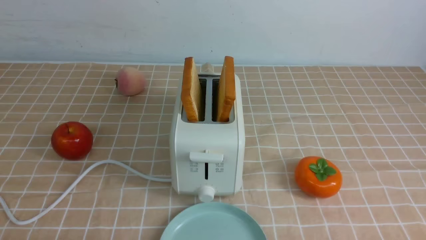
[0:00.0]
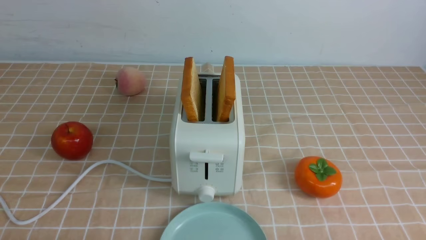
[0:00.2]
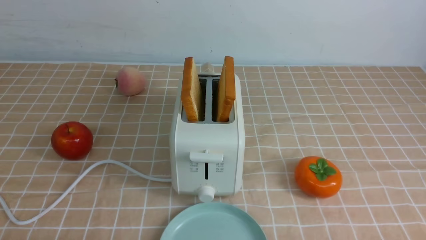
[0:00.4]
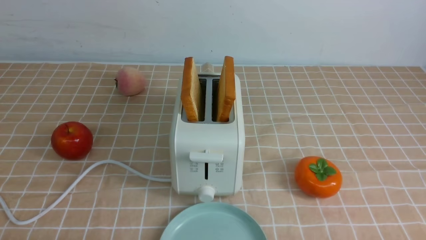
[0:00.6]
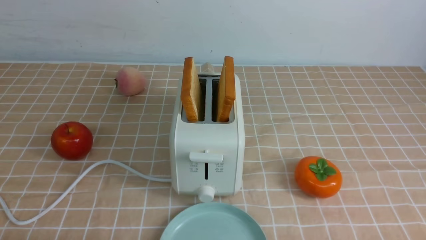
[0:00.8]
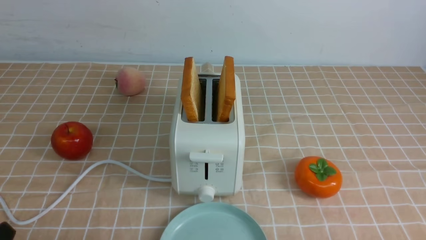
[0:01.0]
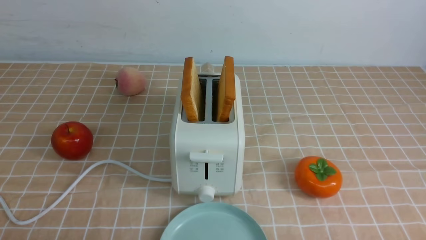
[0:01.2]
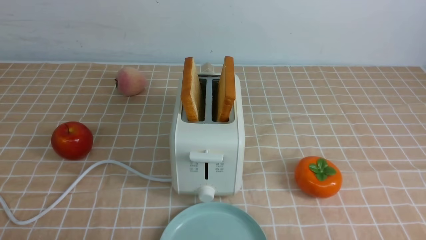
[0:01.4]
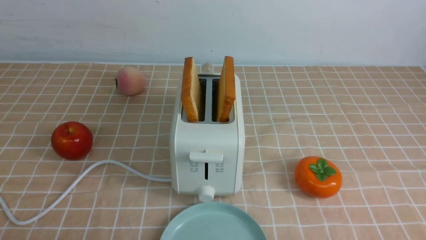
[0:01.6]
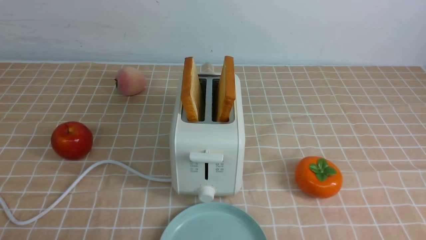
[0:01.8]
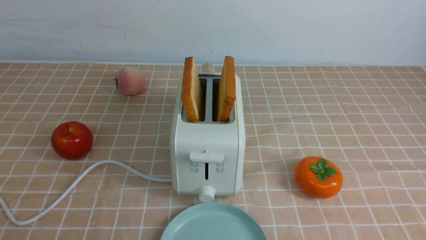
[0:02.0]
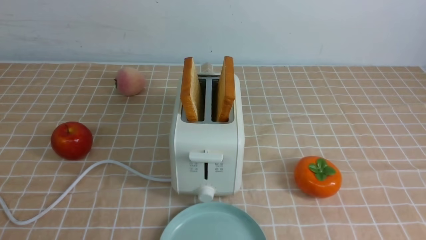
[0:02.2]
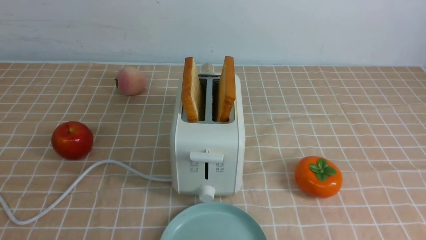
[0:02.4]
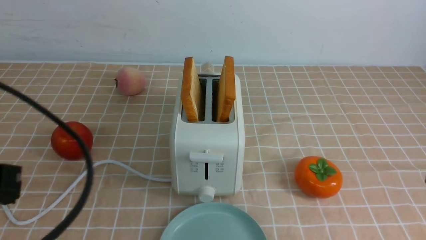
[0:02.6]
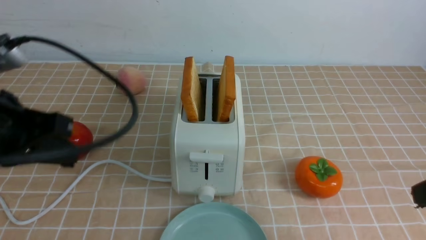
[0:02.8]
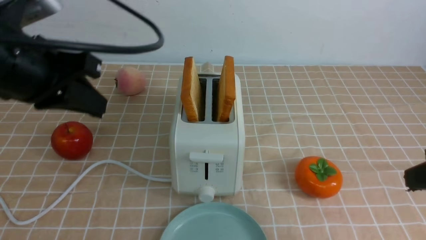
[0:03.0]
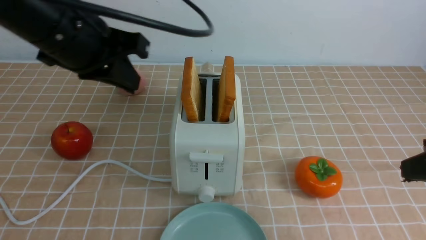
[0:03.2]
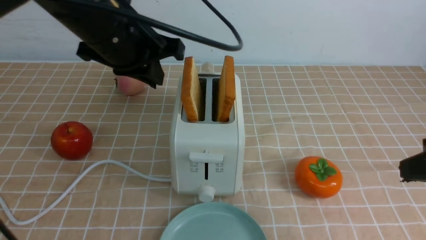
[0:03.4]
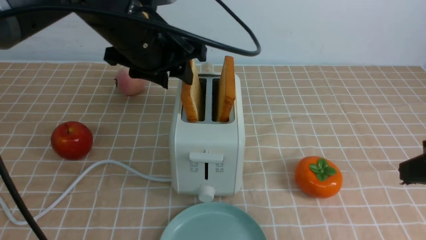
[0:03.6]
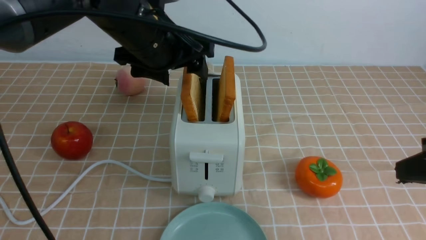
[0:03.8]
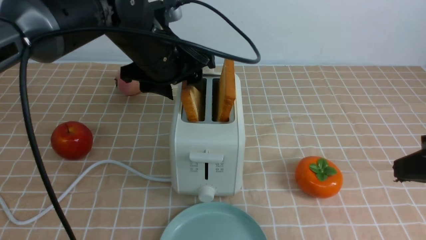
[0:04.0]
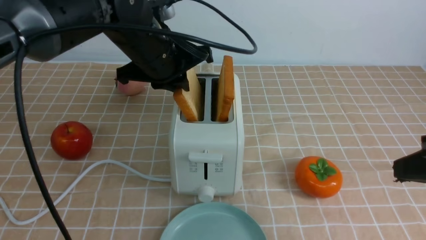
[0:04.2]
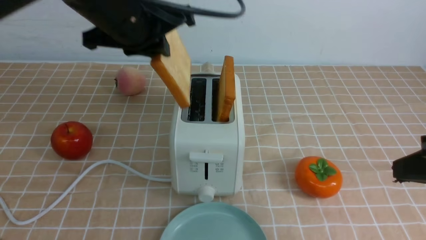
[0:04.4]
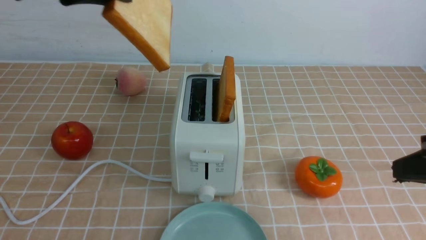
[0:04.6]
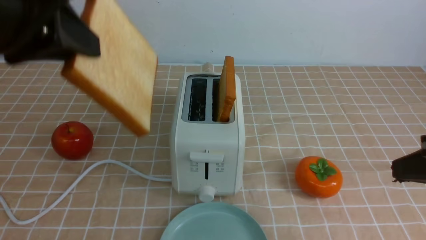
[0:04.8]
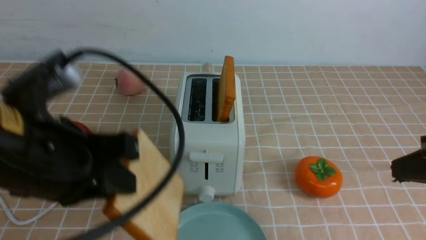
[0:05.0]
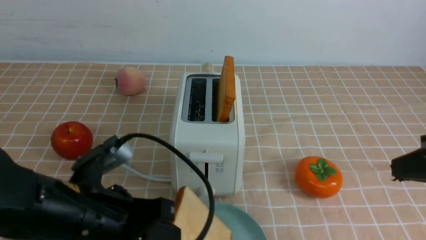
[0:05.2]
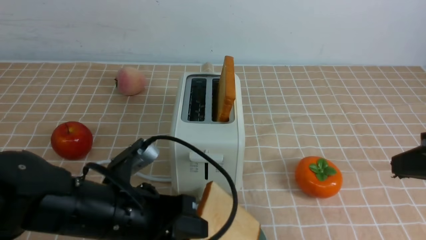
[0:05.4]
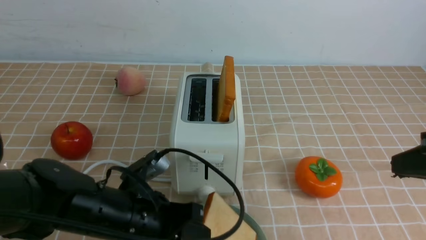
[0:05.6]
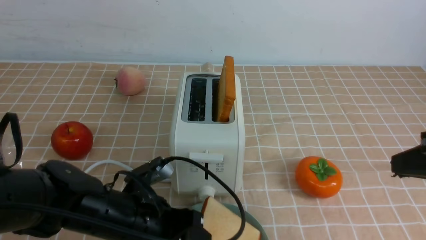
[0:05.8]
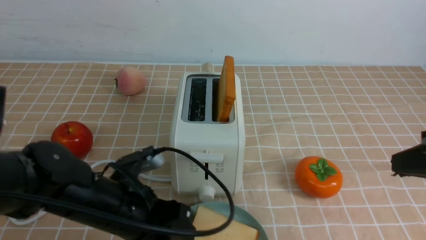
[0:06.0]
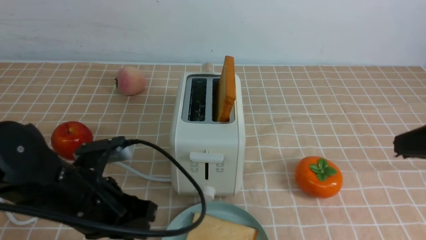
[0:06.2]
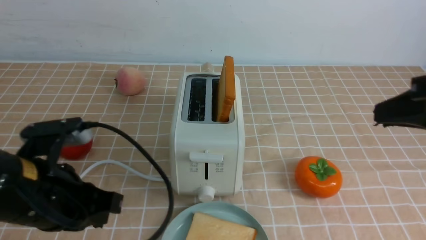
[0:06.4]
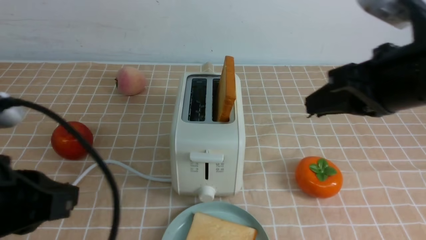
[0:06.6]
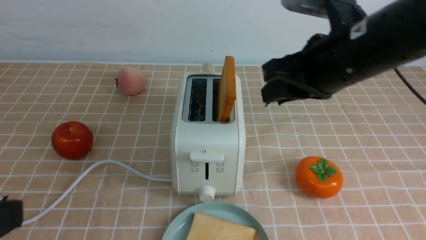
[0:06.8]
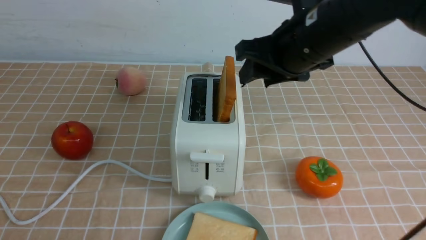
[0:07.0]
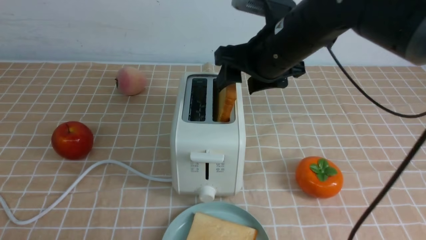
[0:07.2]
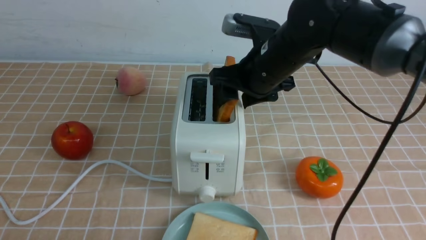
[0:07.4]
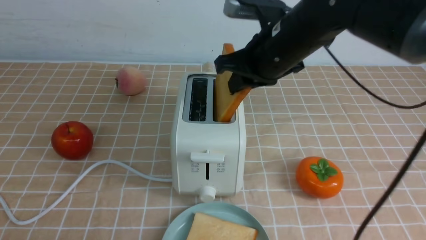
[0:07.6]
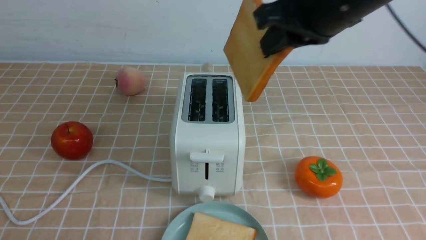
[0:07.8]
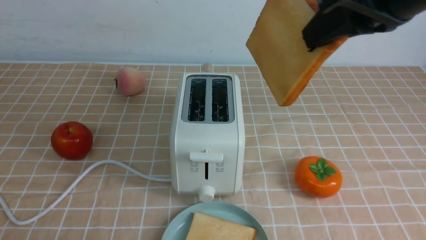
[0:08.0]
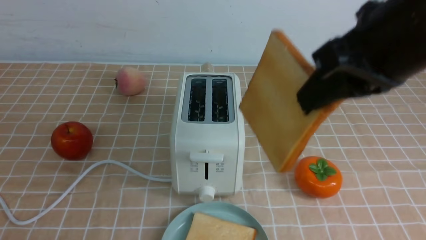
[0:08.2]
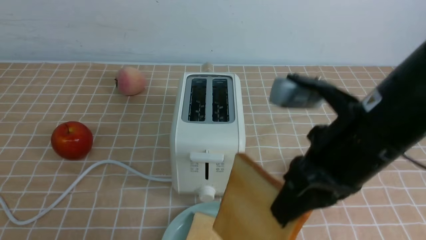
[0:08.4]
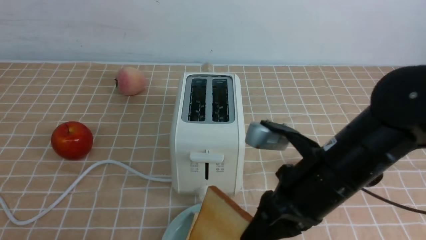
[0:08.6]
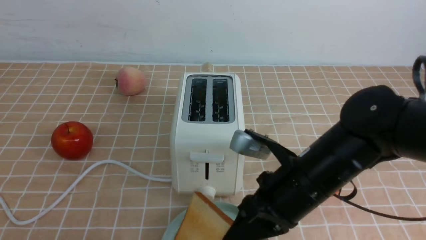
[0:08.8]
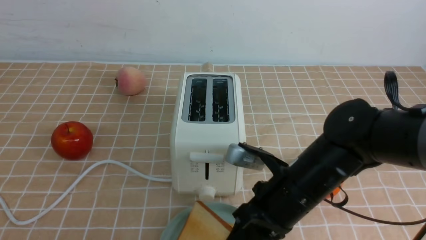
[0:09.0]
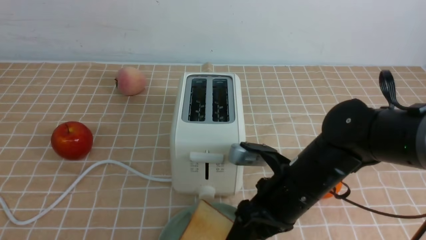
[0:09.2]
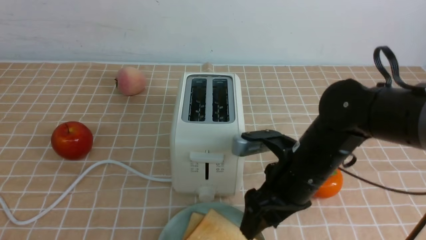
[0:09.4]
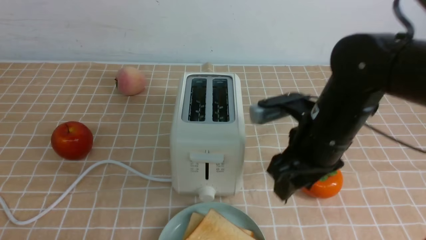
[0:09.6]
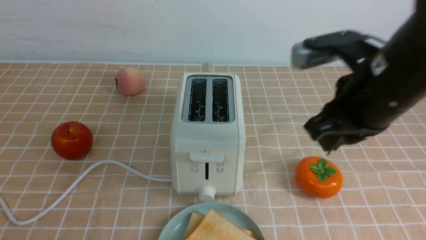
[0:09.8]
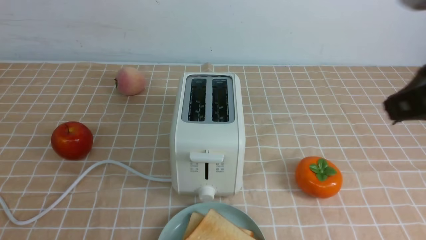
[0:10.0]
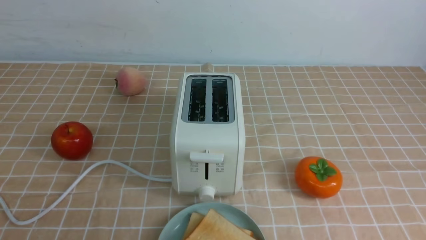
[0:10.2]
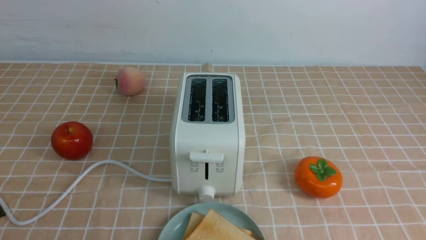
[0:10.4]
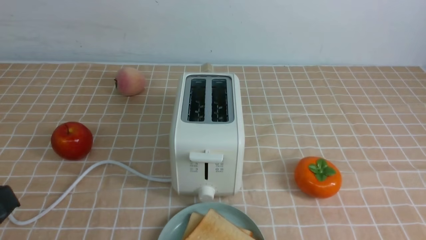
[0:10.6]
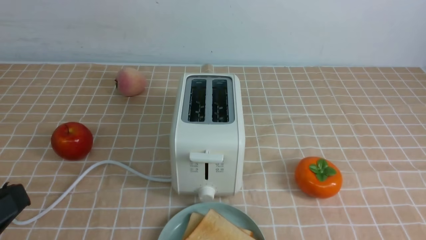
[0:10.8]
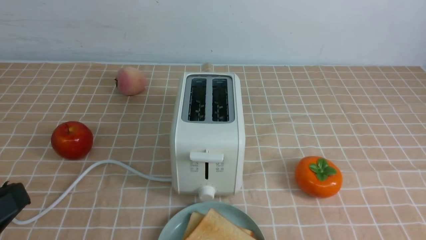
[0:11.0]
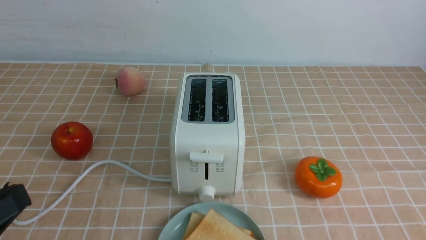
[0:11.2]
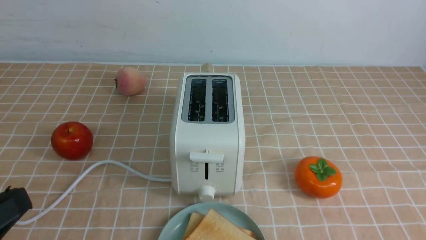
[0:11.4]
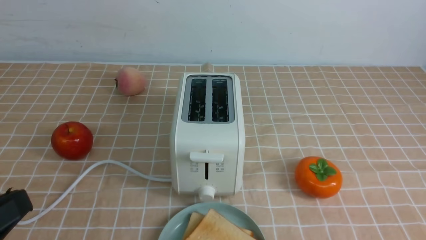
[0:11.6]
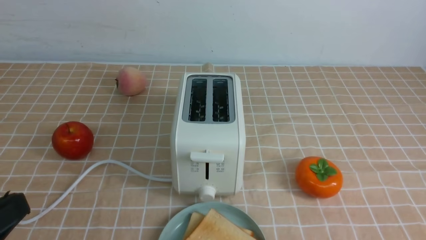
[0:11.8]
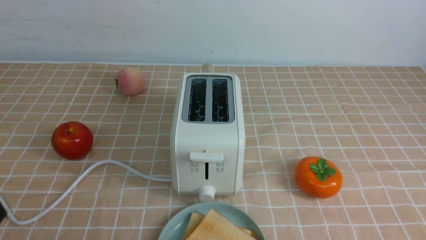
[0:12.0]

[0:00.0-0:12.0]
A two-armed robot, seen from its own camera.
Task of the whole recording: take toasted bread from bread machine on light coffee tablecloth place on plate.
Step, 0:00.0 to 0:04.2: use the left arm to take out a slice of bread.
Step, 0:04.6 to 0:06.0: use the left arm to put a slice of bread into the empty plate.
Step, 0:06.2 to 0:07.6: use the right arm to take out a slice of bread.
Step, 0:07.8 to 0:09.4: use the right arm to put a slice of bread into the plate.
0:01.6 to 0:03.0: The left gripper is displaced forward and upward by some 25 cm, and closes its fingers. Meanwhile the right gripper travels upward and forward by about 20 cm, and closes up.
0:03.0 to 0:04.4: The left gripper heads to the right and forward, covering approximately 10 cm, and opens, then closes again.
0:04.4 to 0:06.0: The left gripper travels downward and backward by some 25 cm, and opens its fingers.
0:06.0 to 0:07.6: The right gripper heads to the left and forward, covering some 25 cm, and opens, then closes again. Meanwhile the left gripper goes approximately 25 cm backward, to the left and upward, and closes up.
0:07.6 to 0:09.0: The right gripper heads downward and backward, covering some 20 cm.
0:09.0 to 0:10.4: The right gripper is displaced backward, to the right and upward by approximately 30 cm, and closes its fingers.

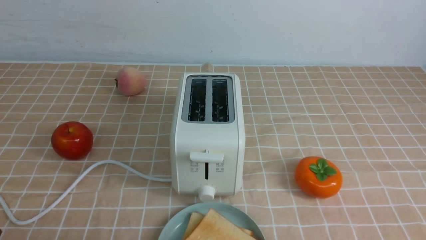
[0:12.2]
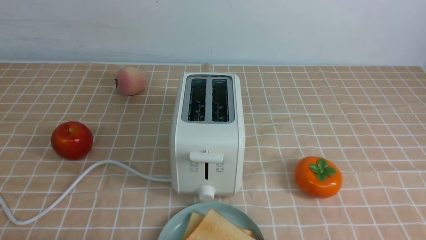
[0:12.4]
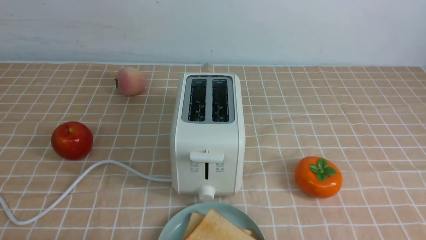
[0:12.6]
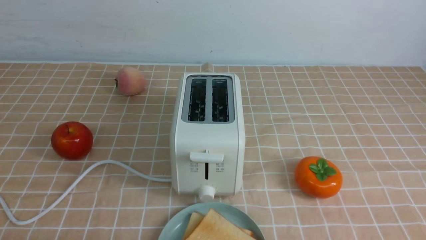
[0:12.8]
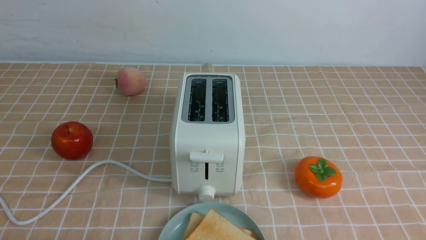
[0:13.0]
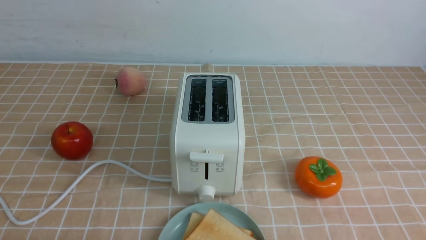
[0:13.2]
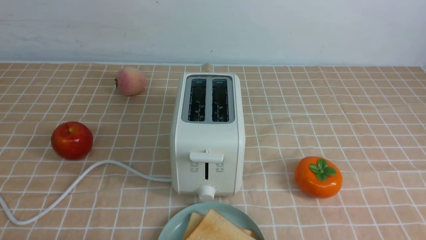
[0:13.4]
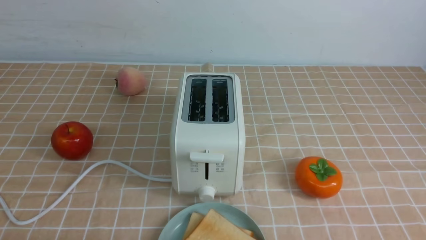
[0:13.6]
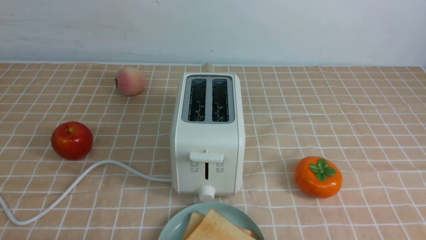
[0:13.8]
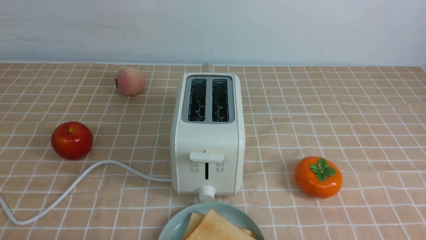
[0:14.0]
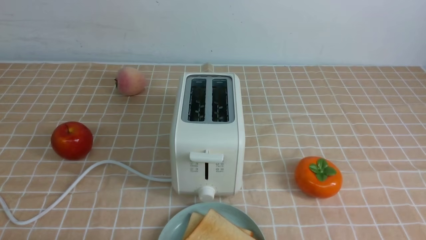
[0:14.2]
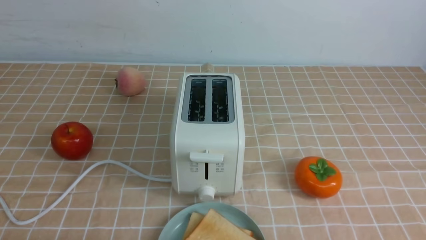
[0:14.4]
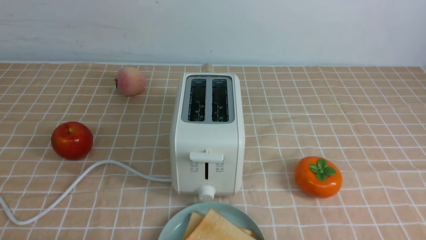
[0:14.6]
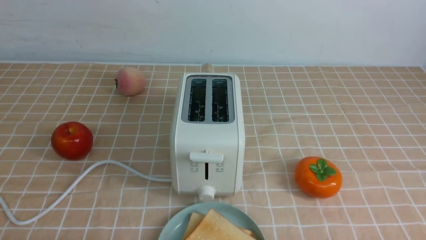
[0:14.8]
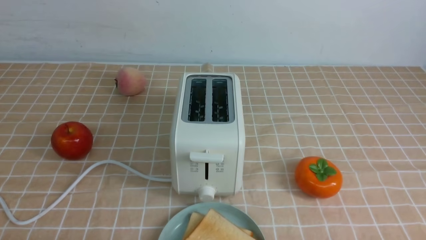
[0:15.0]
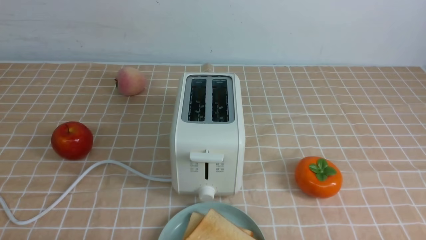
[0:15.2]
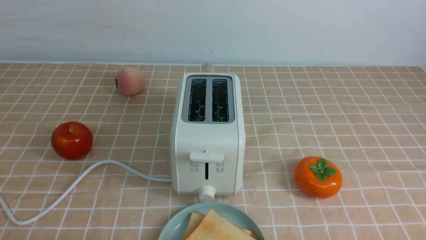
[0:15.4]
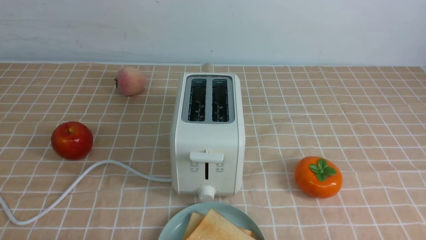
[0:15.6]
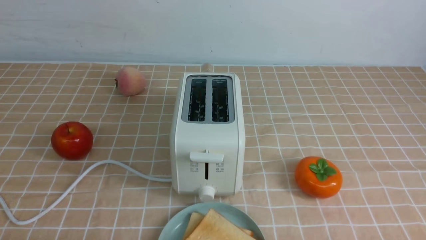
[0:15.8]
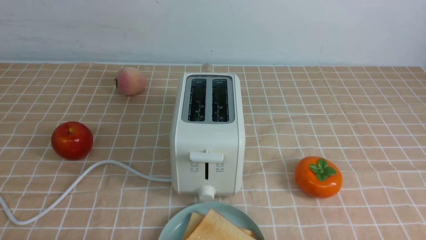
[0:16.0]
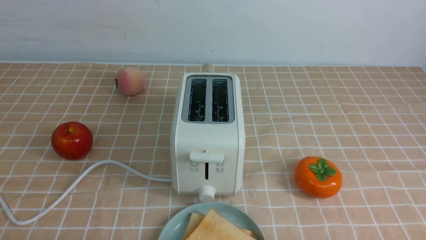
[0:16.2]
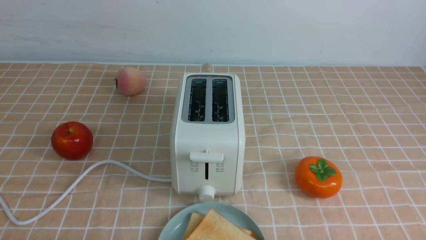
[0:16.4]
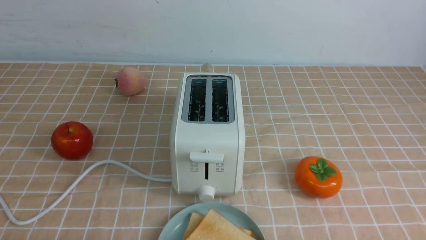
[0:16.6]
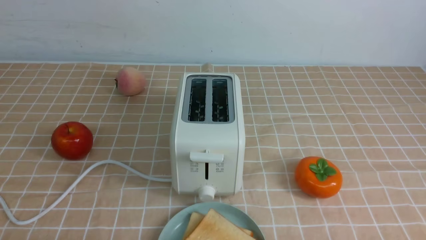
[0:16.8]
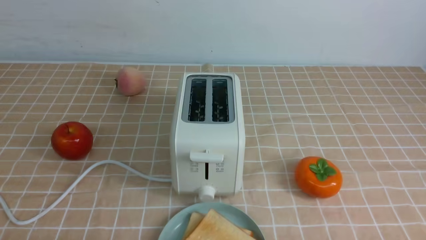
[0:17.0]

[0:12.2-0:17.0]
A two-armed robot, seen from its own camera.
Task of the whole recording: take toasted bread from bread machine on light coffee tablecloth place on plate.
0:15.4 to 0:17.0: Neither gripper changes place.
